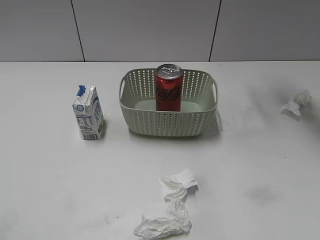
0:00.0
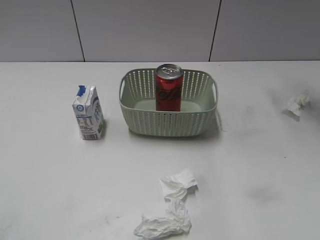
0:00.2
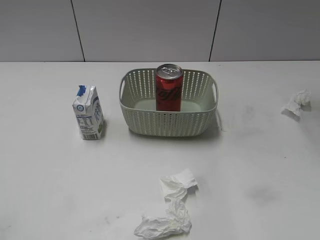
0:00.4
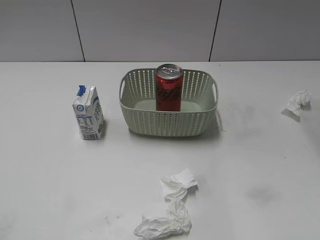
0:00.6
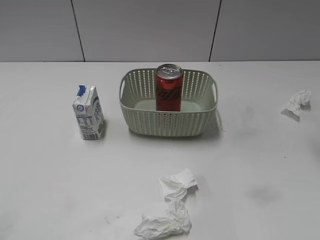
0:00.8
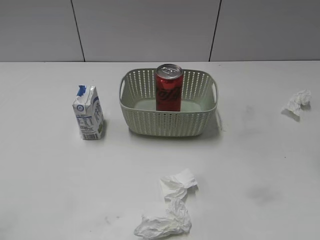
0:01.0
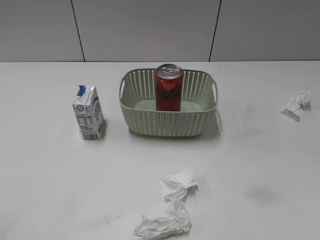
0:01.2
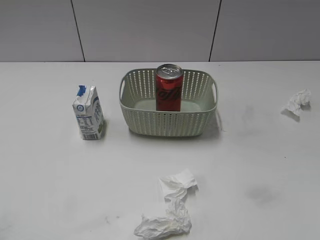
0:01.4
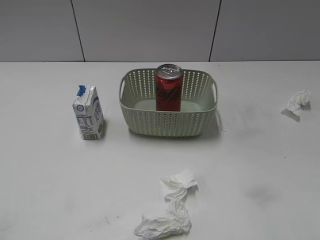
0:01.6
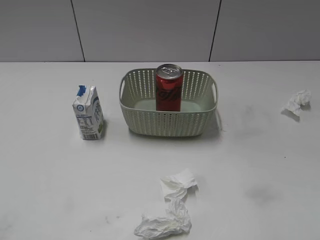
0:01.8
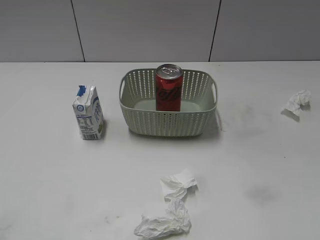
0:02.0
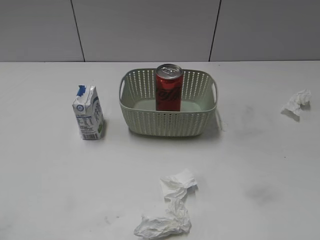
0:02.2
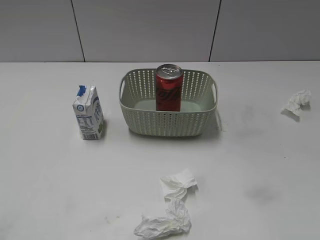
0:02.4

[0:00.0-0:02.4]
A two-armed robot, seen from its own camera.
0:00.0 to 0:01.2: The right gripper is displaced backward by approximately 25 cm.

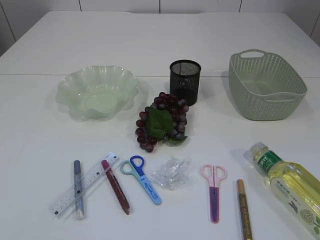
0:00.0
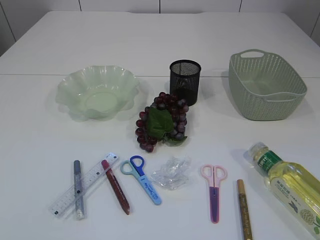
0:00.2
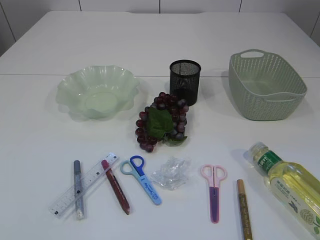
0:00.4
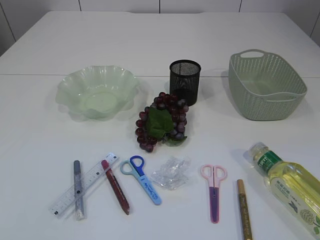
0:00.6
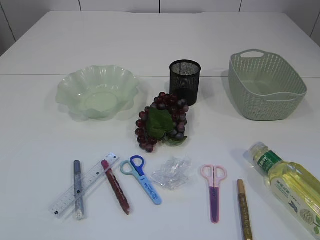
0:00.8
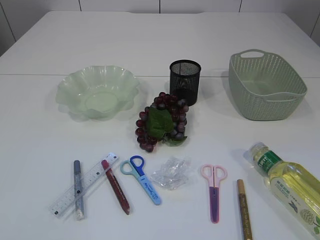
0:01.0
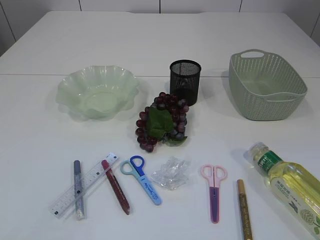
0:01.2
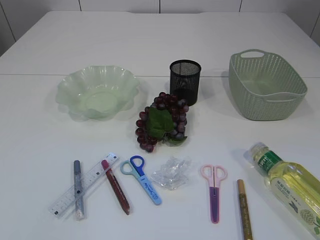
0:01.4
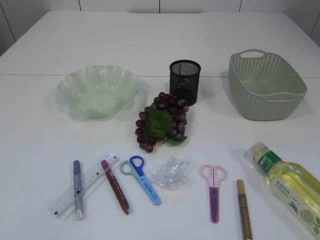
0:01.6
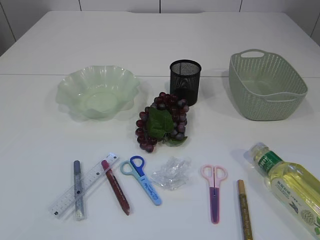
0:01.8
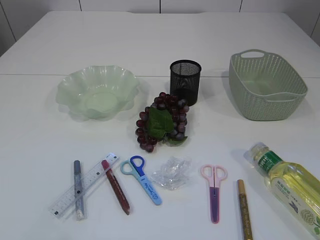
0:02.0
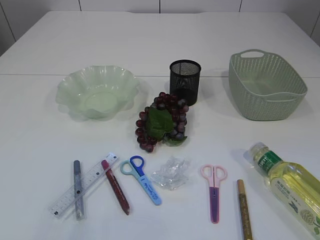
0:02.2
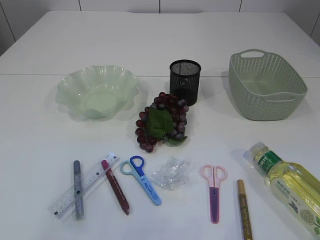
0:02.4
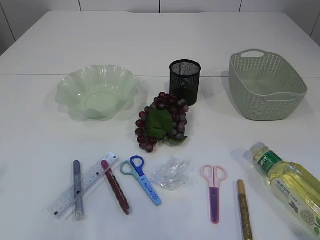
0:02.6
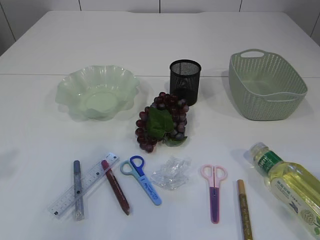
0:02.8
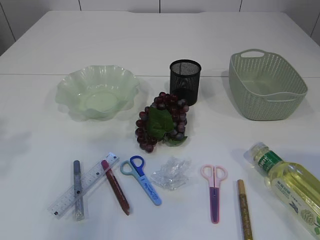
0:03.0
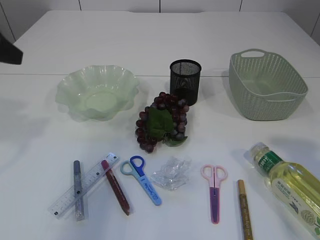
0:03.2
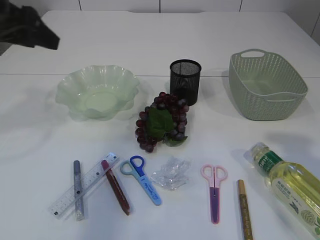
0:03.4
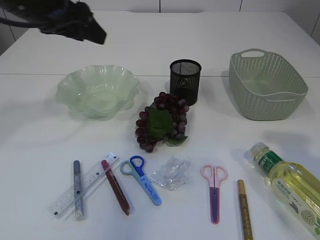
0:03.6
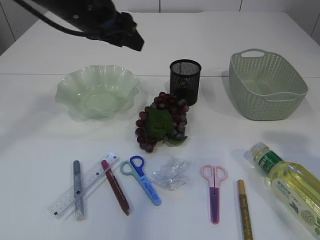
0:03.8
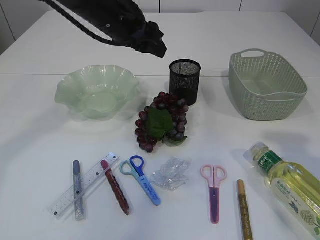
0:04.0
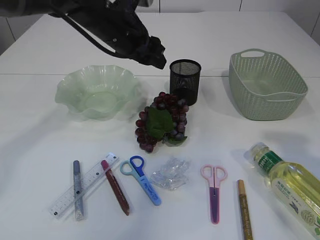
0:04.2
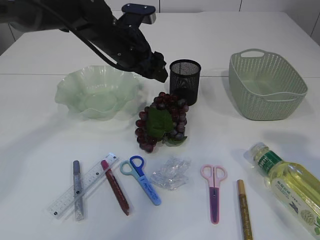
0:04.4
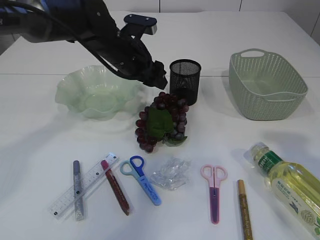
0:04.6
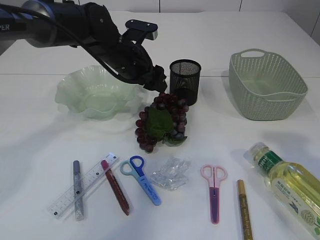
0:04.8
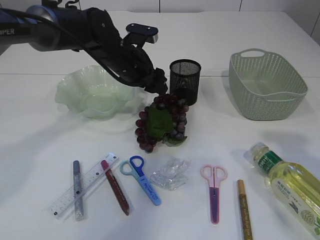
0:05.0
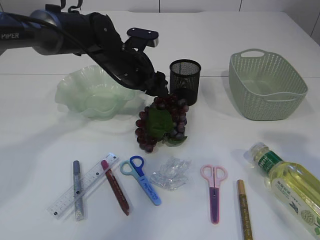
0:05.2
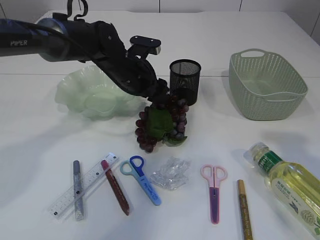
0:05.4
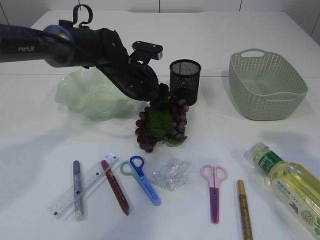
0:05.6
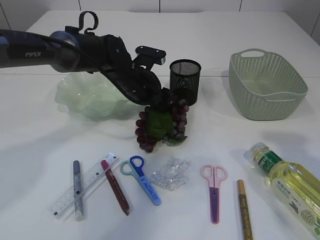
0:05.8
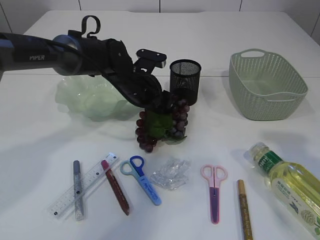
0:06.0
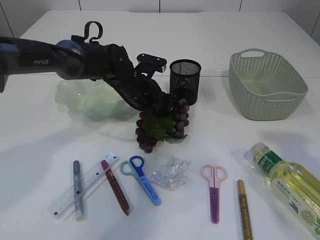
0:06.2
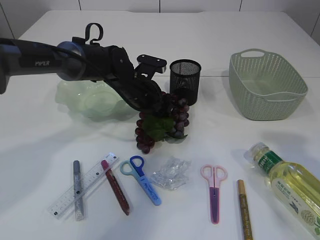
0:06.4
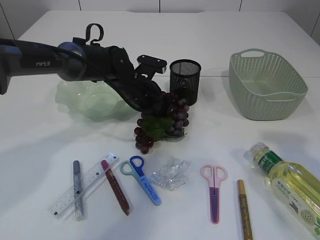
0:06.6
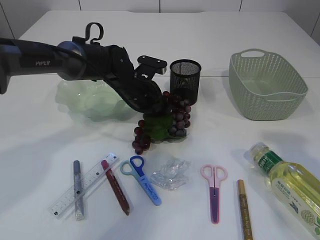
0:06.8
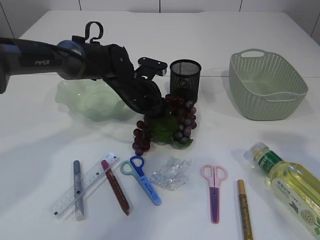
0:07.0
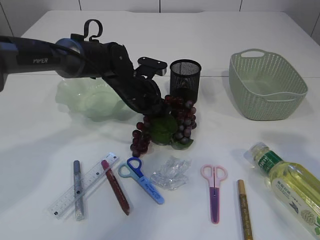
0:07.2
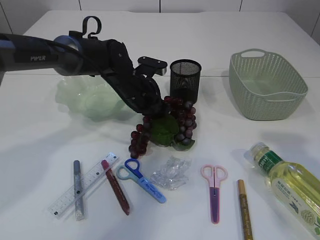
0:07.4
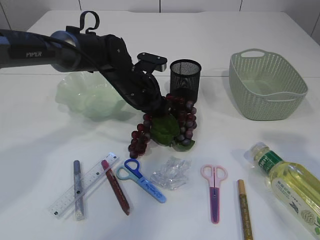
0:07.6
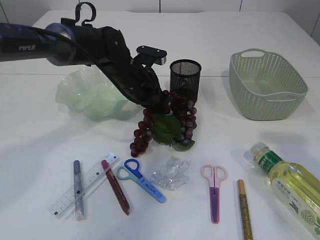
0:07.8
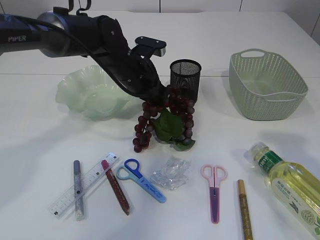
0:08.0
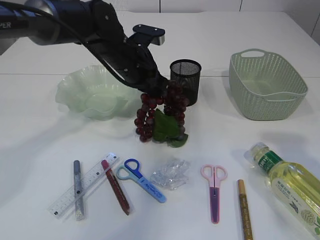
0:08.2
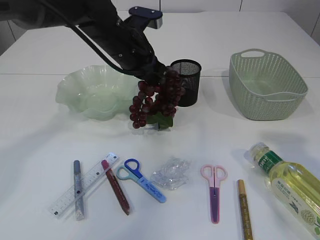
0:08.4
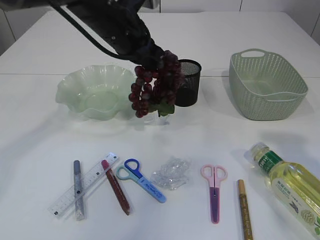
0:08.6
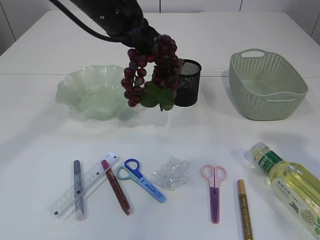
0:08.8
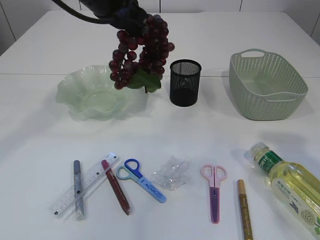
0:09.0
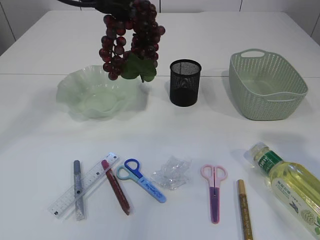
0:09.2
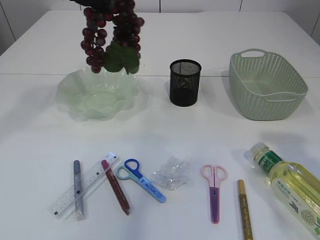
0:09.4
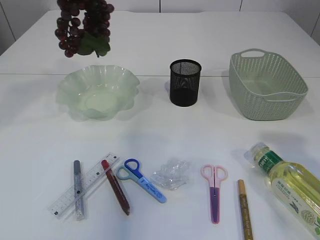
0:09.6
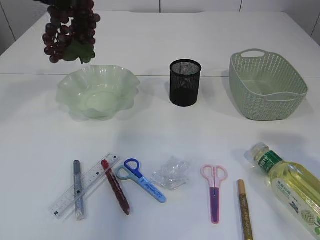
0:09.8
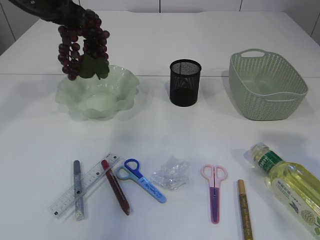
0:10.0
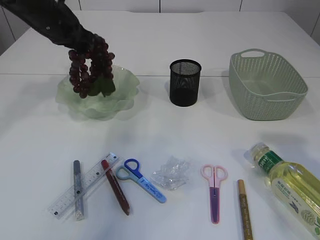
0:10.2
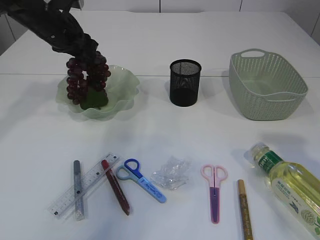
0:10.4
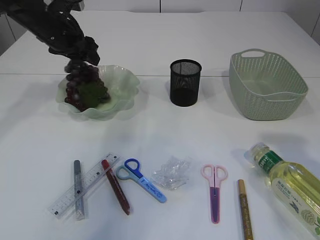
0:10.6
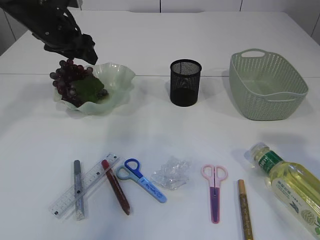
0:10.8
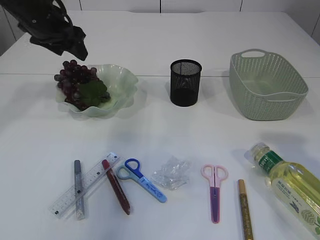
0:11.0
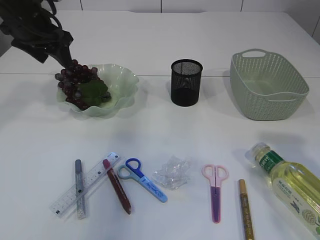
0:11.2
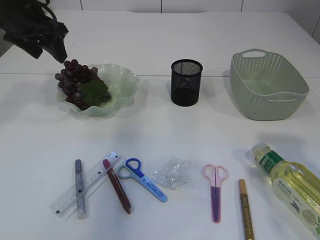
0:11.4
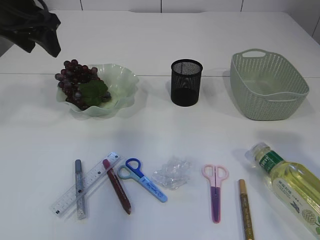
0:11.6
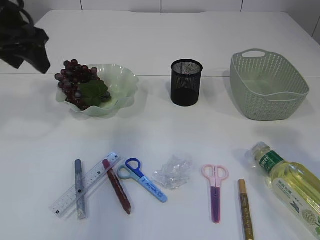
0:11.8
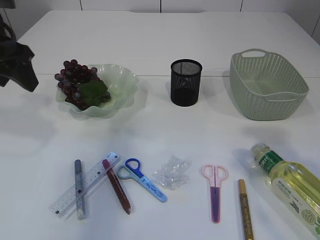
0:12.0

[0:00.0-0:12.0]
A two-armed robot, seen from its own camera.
Step, 0:00.0 to 0:08.8: Pick up the grapes.
Step, 0:09.0 to 0:11.0: Place the grapes in the plate.
0:01.6 to 0:03.0: The left gripper moves forward, approximately 25 cm; the right gripper goes about 15 cm forward and upward.
0:03.0 to 0:04.4: The right gripper shifts some 5 cm forward; the left gripper travels to the right, forward and downward by roughly 30 cm.
0:04.4 to 0:06.0: The left gripper heads downward, covering some 10 cm.
0:06.0 to 0:07.6: The left gripper closes its fingers.
0:07.6 to 0:09.0: The left gripper travels upward by about 20 cm.
0:09.0 to 0:10.4: The left gripper goes some 20 cm to the left, downward and forward, and opens its fingers.
0:10.4 to 0:12.0: The left gripper goes approximately 15 cm backward and upward.

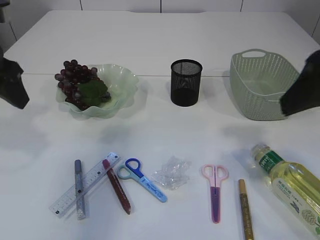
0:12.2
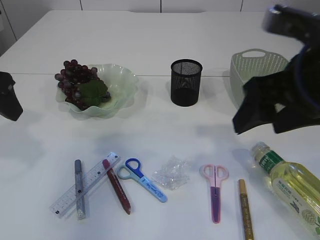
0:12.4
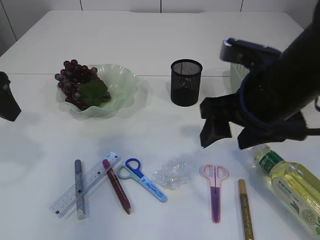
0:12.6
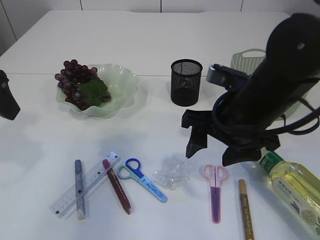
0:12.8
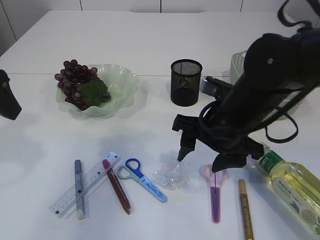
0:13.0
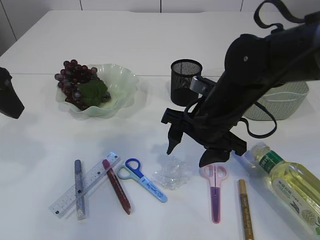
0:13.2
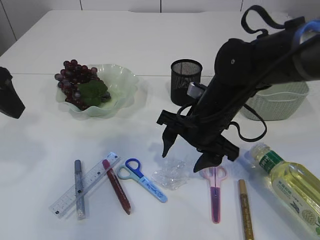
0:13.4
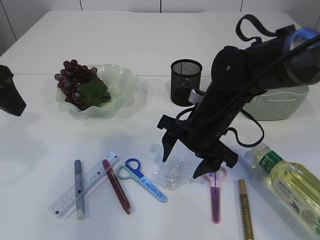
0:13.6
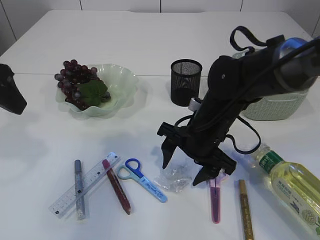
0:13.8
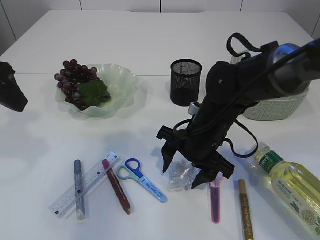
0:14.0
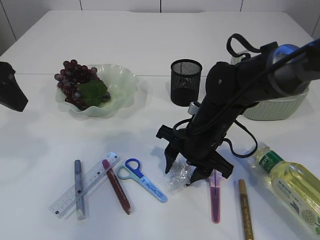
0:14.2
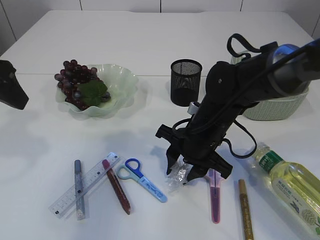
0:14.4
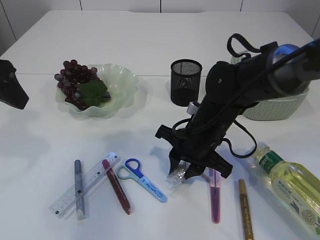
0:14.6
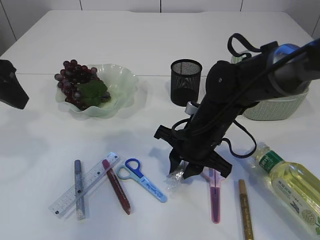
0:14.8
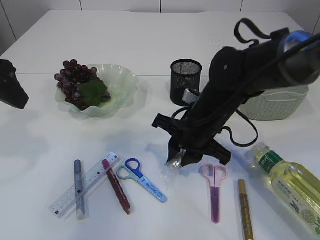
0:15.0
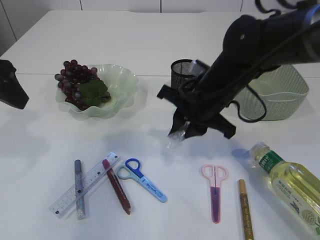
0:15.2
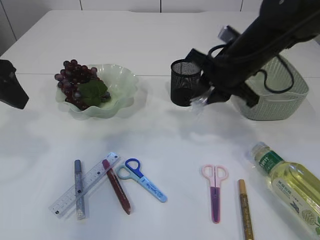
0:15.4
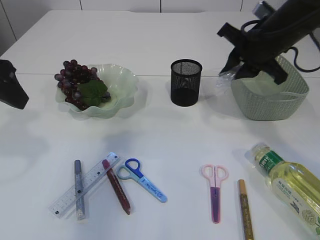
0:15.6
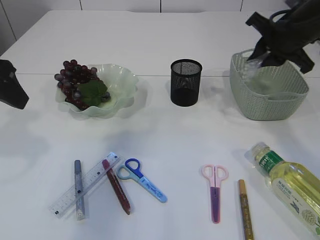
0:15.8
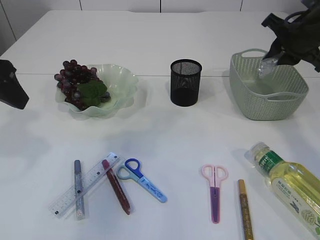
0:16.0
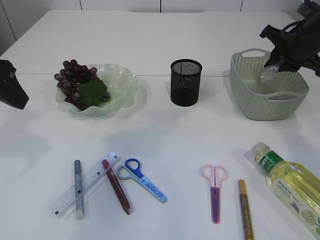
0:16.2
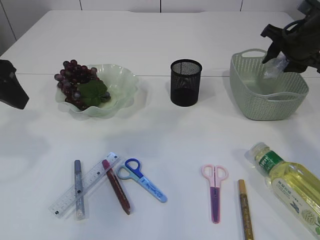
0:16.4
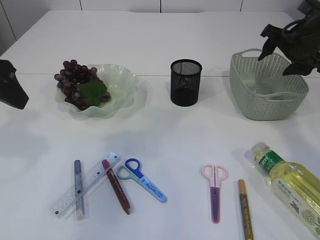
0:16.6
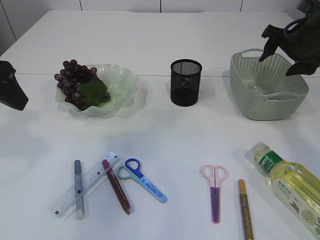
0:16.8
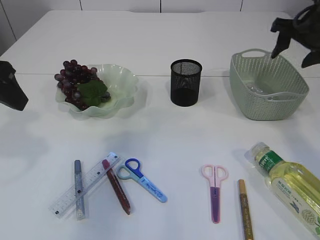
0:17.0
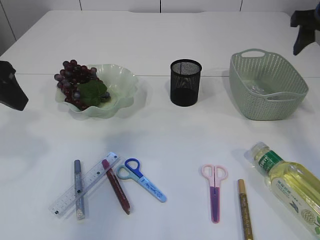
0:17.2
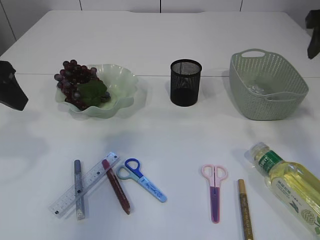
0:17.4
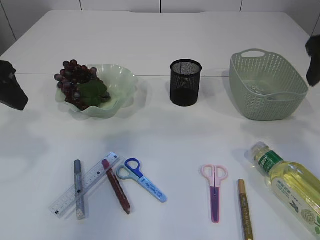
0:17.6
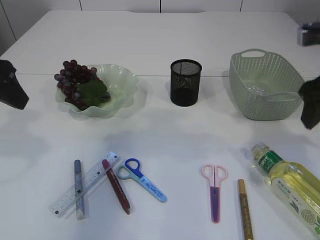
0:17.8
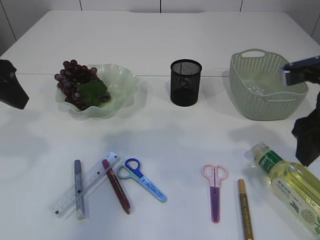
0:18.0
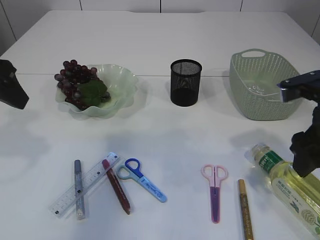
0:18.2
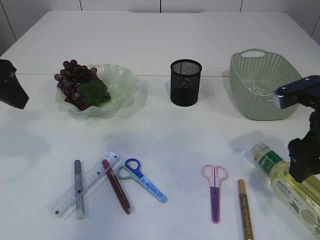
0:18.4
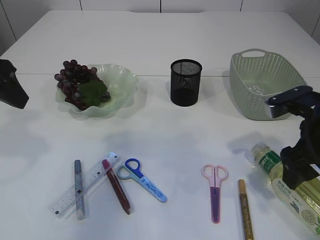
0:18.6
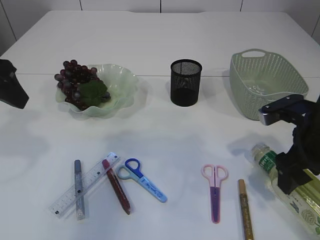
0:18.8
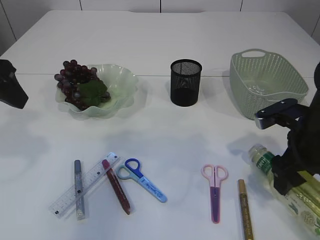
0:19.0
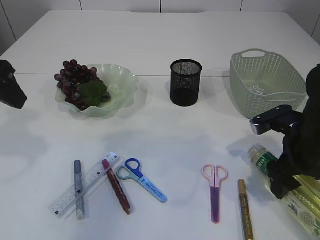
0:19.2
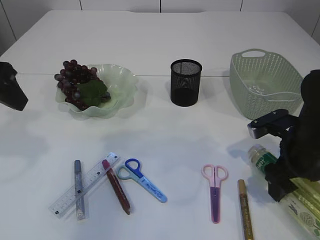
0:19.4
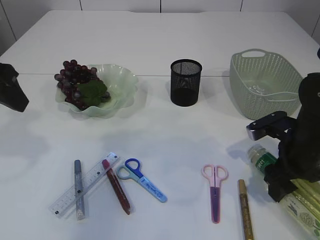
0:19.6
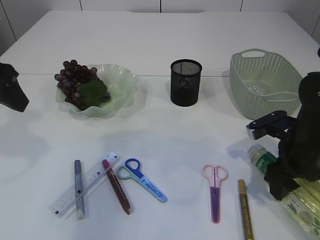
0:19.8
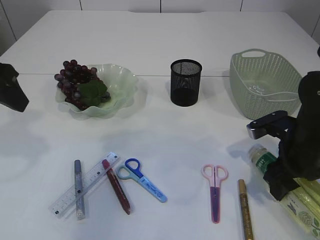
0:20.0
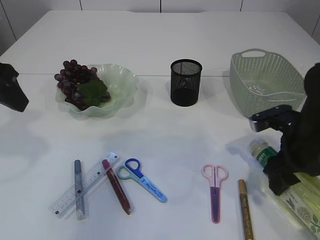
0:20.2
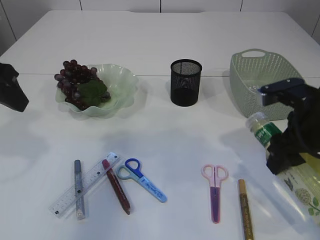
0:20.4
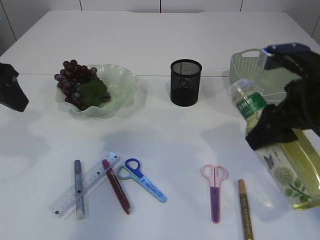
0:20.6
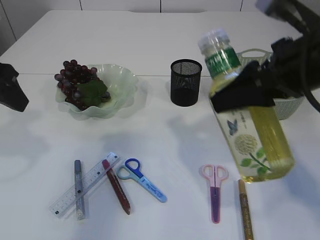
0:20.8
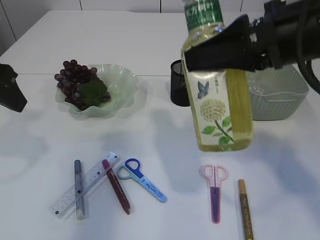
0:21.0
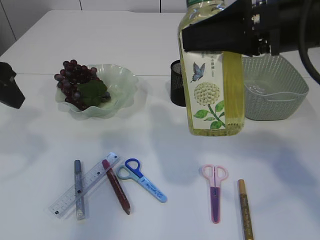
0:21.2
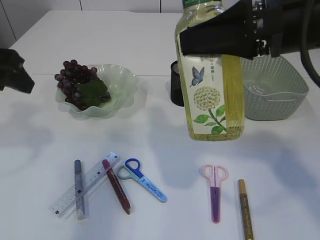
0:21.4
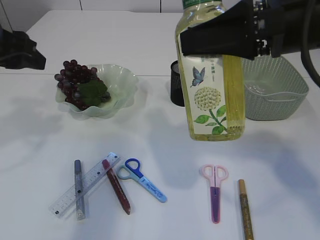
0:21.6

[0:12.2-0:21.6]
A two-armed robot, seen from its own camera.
Step, 0:12.2 to 0:15.2: Pick up the plastic.
Step, 0:15.4 to 0:17.0: Place the plastic in the basket.
Step, 0:17.2 to 0:20.6: Pick up the bottle with the right arm.
0:12.2 to 0:13.8: The right gripper moves downward, to the left and forward, about 25 cm.
0:13.8 to 0:15.4: The right gripper heads upward and to the right, covering roughly 10 cm, and closes up.
0:15.4 to 0:17.0: The right gripper travels to the right by about 15 cm, and opens its fingers.
0:17.0 to 0:18.4: The right gripper goes approximately 15 cm backward.
0:18.4 to 0:20.0: The right gripper goes roughly 10 cm downward.
0:20.0 to 0:21.6: The right gripper goes some 20 cm upward.
